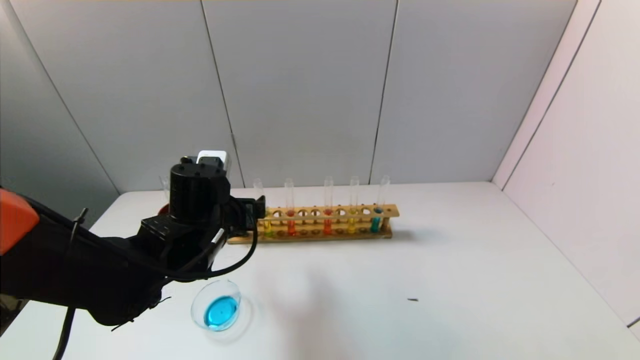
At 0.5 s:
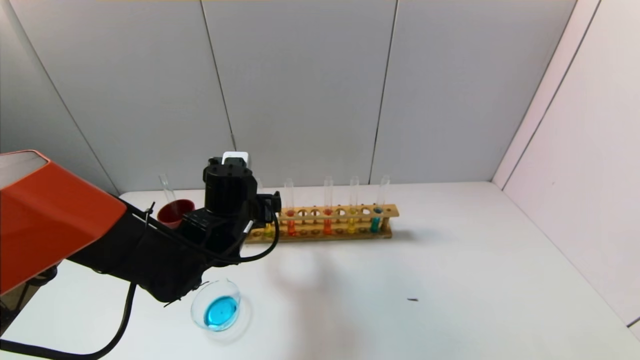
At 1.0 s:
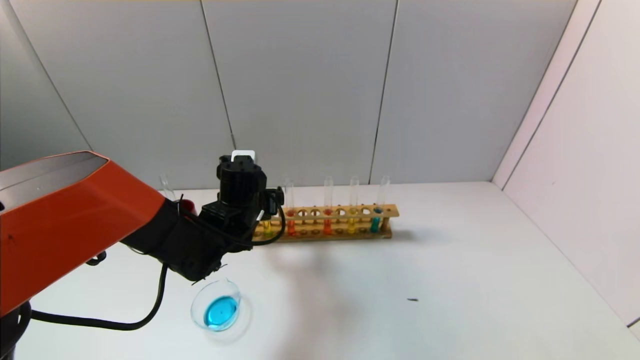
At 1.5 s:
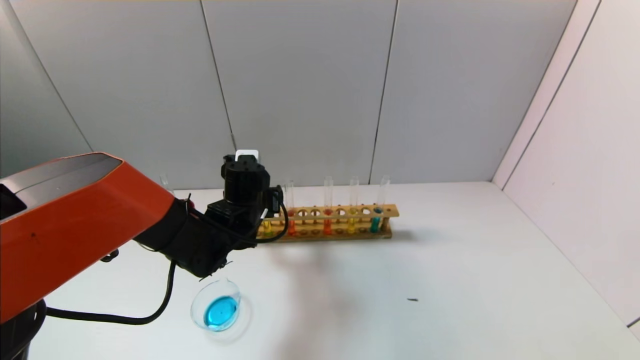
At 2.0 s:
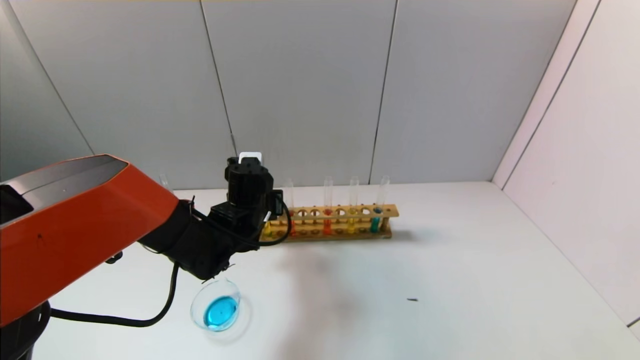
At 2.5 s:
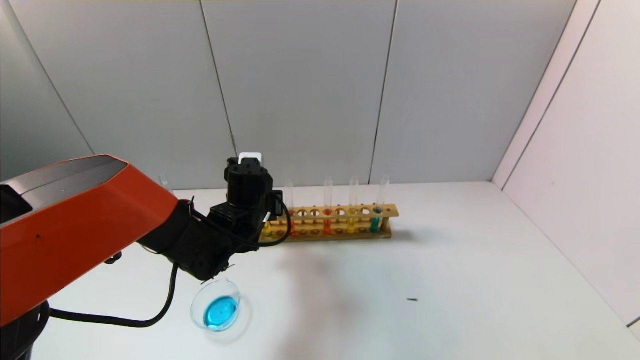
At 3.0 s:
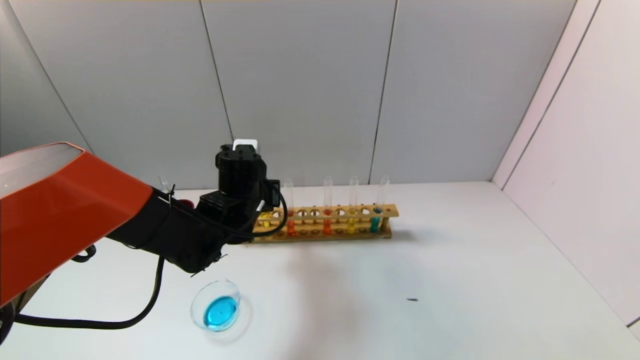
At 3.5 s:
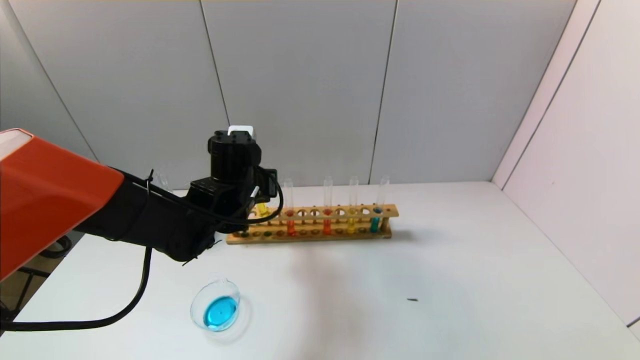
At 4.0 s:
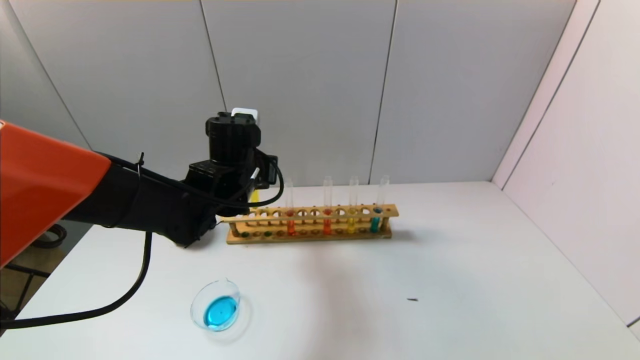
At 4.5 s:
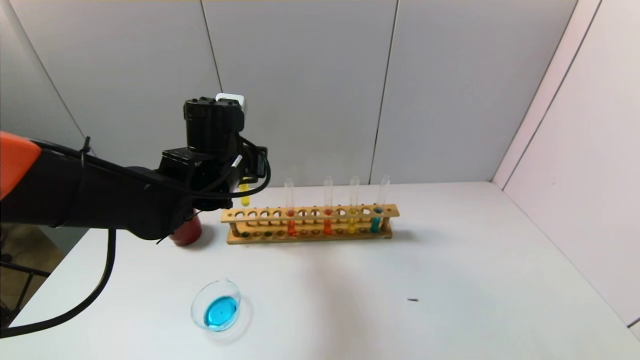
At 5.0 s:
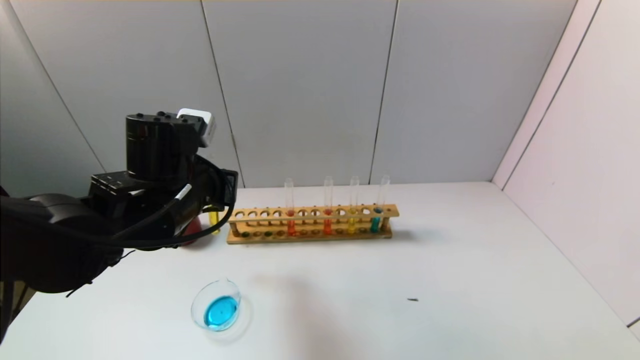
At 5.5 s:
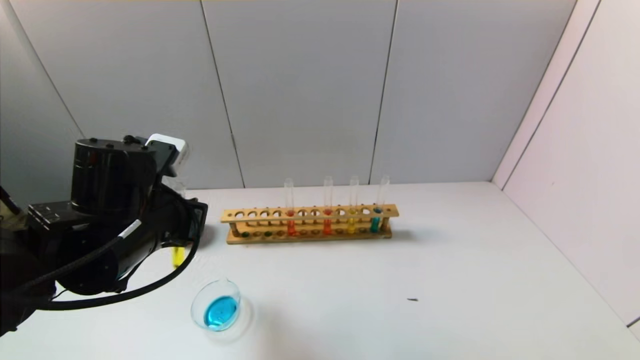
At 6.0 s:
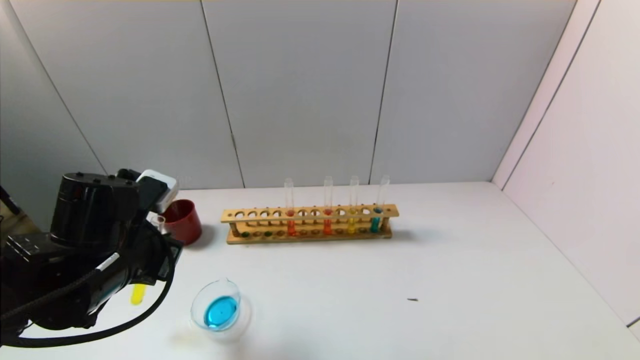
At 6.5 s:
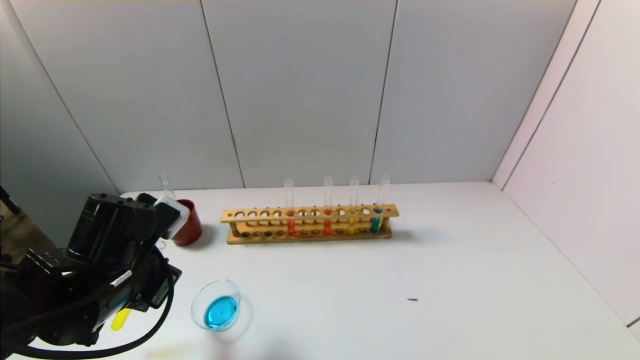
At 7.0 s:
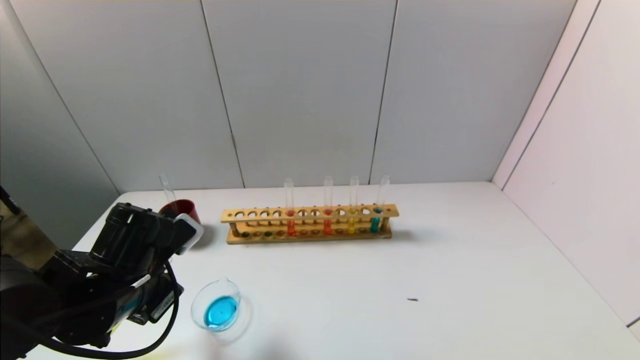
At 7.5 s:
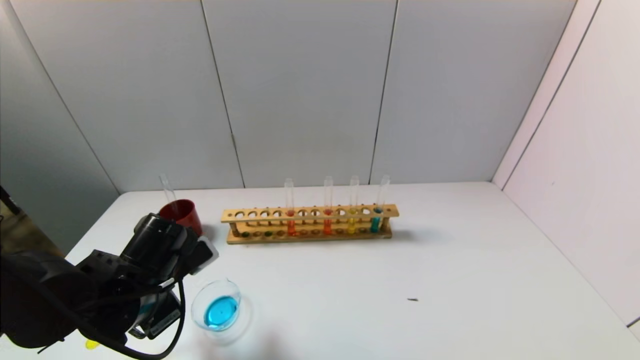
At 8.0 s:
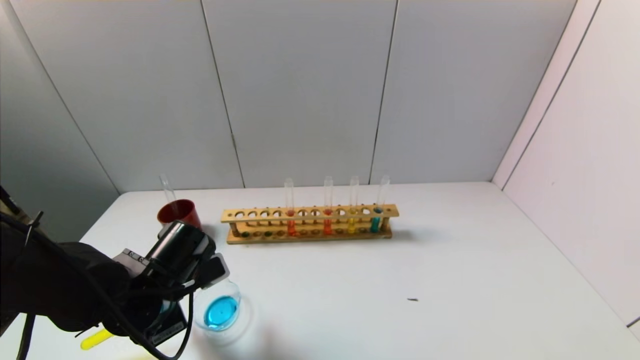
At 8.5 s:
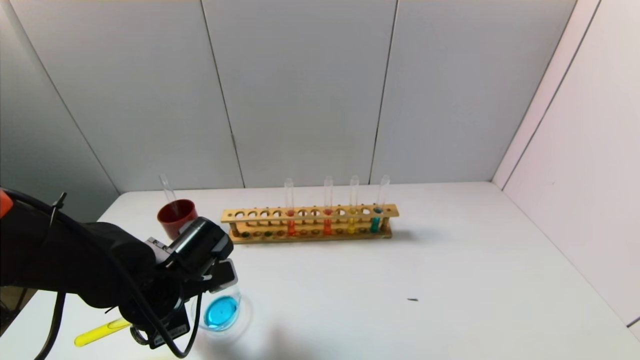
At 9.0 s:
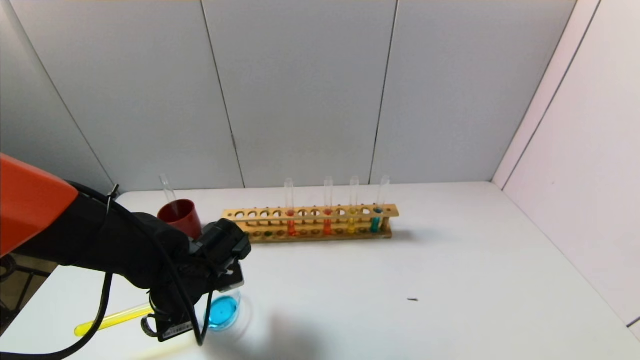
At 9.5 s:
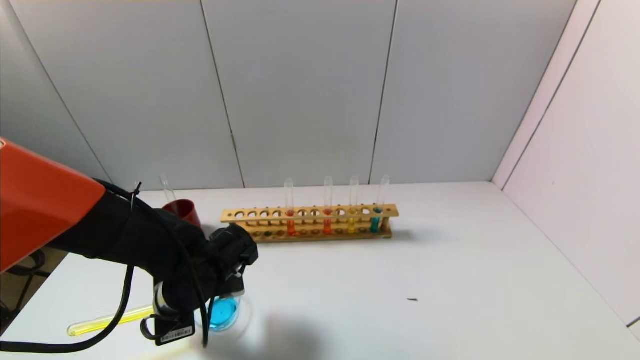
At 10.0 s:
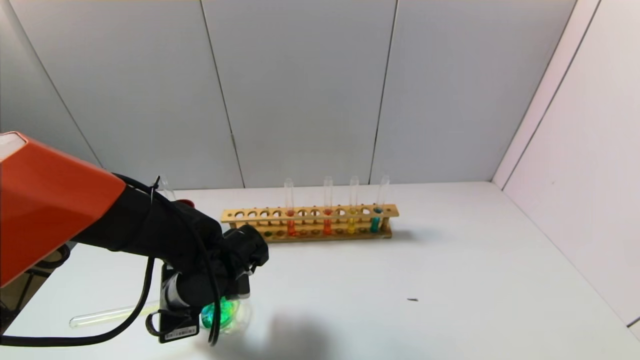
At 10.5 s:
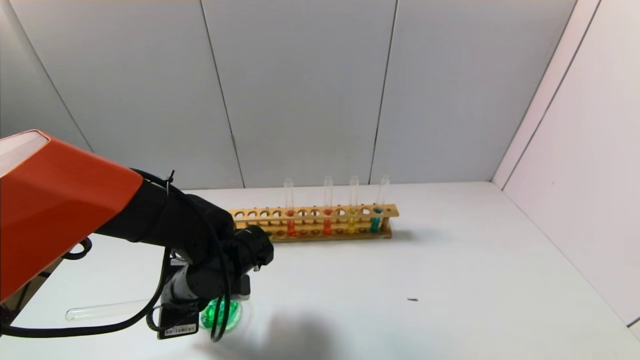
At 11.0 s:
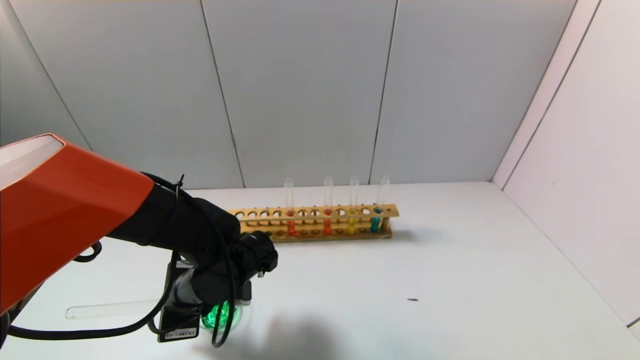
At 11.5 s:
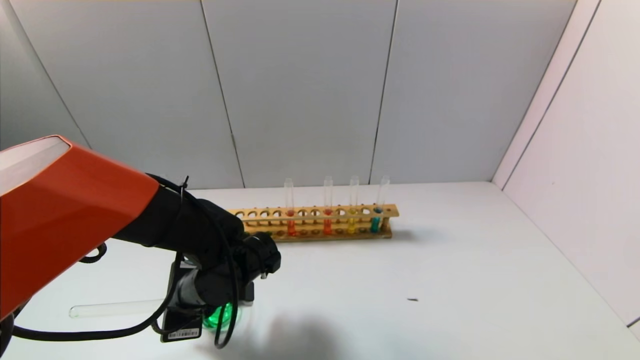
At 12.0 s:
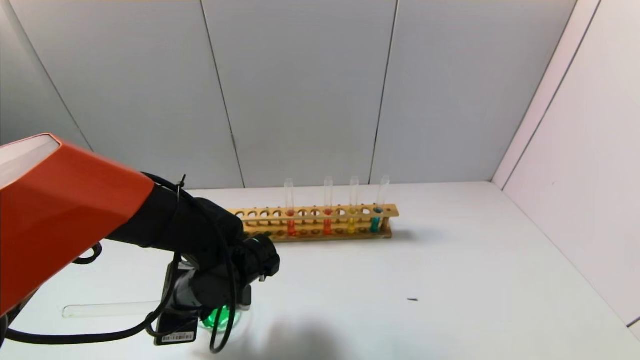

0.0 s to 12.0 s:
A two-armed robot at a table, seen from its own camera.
Task of the whole recording: pick up the test tube with yellow pigment and the test tube with blue pigment by grippers and pour them into the beaker.
Step, 0.0 to 2.0 s: Grasp the yellow reagent with the left gripper.
0.0 to 2.0 s: The left gripper is displaced forward by approximately 10 cm, and closes.
2.0 to 4.0 s: The left gripper heads upward, covering about 10 cm.
4.0 to 6.0 s: The left gripper heads backward and to the left, covering roughly 20 cm.
6.0 to 8.0 s: The left gripper goes approximately 10 cm downward.
8.0 to 10.0 s: The left gripper moves about 5 cm.
10.0 to 12.0 s: There are only small adjustments of the grippers.

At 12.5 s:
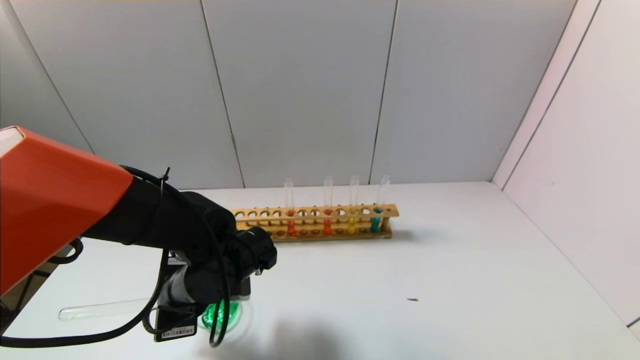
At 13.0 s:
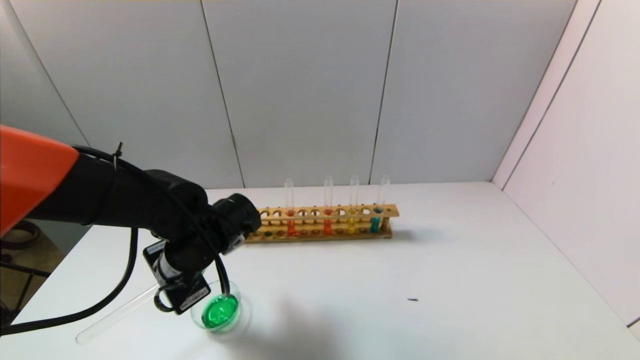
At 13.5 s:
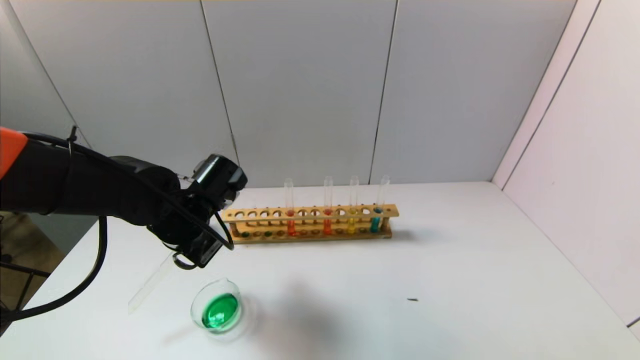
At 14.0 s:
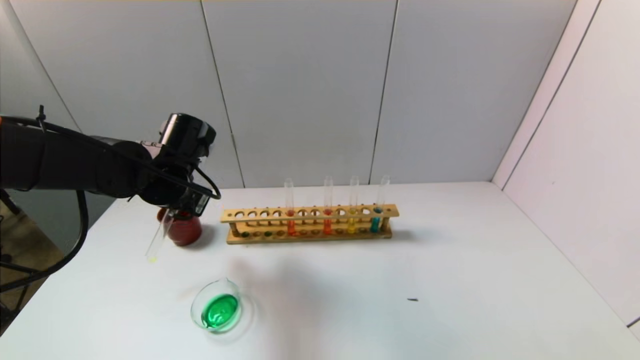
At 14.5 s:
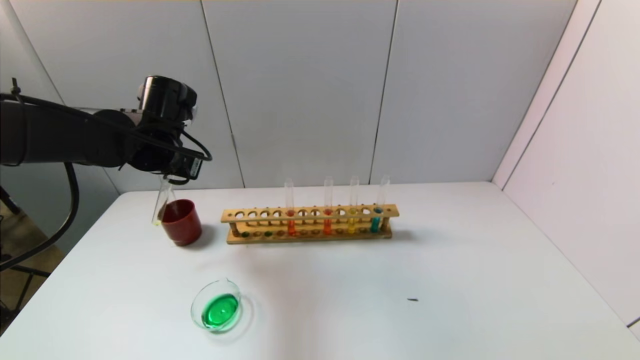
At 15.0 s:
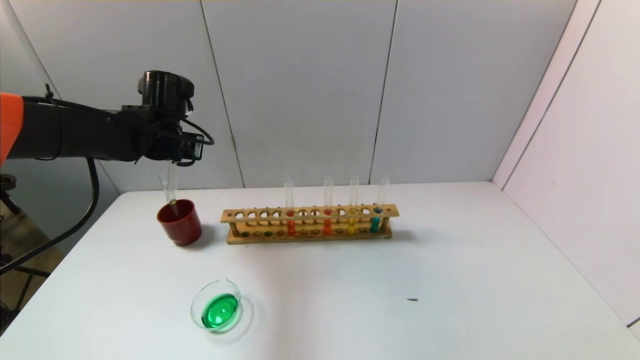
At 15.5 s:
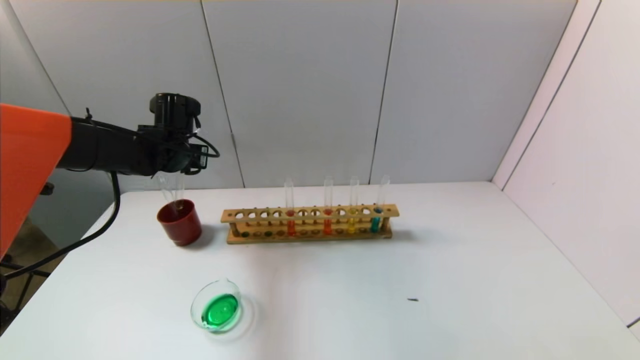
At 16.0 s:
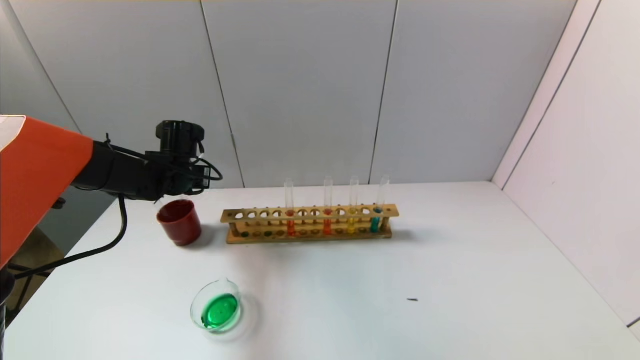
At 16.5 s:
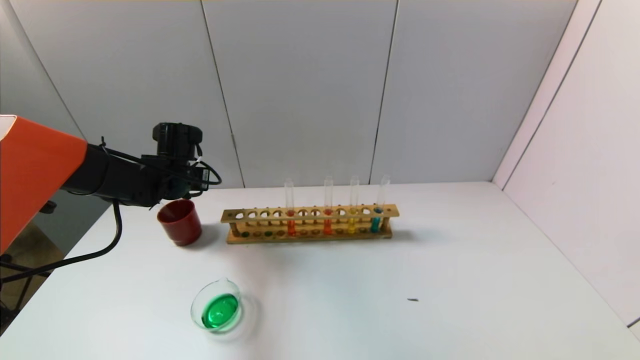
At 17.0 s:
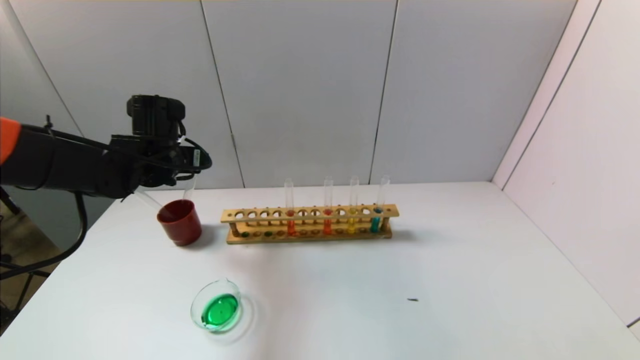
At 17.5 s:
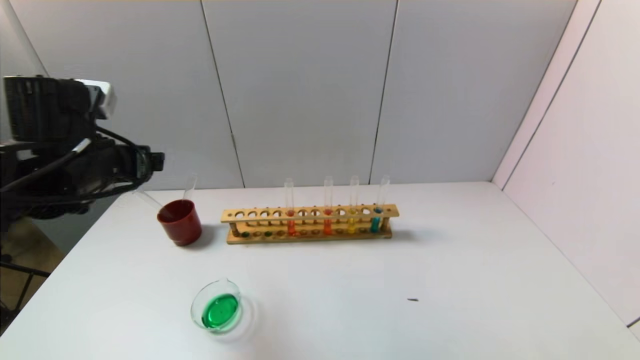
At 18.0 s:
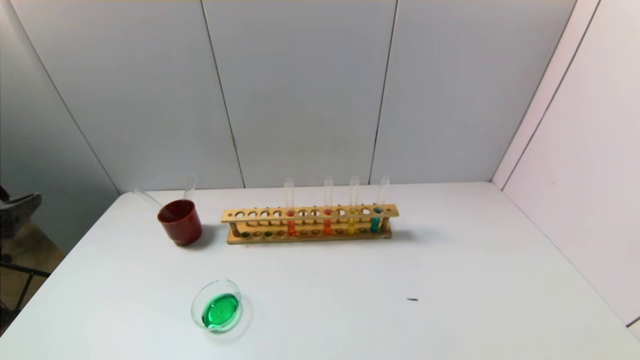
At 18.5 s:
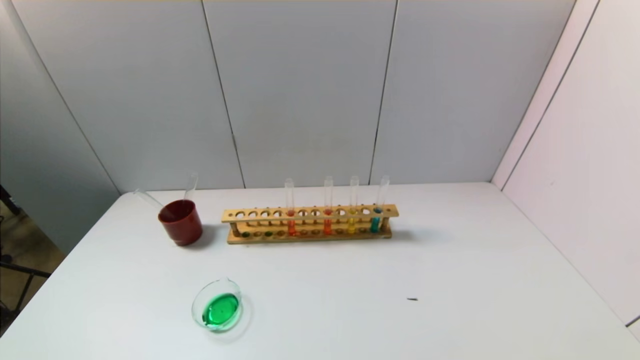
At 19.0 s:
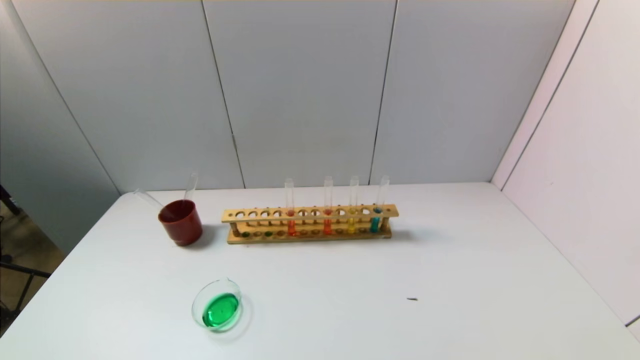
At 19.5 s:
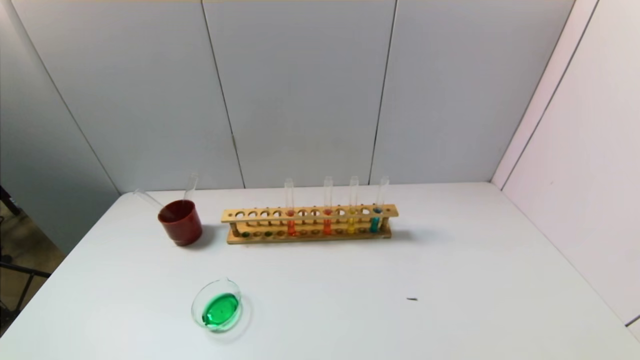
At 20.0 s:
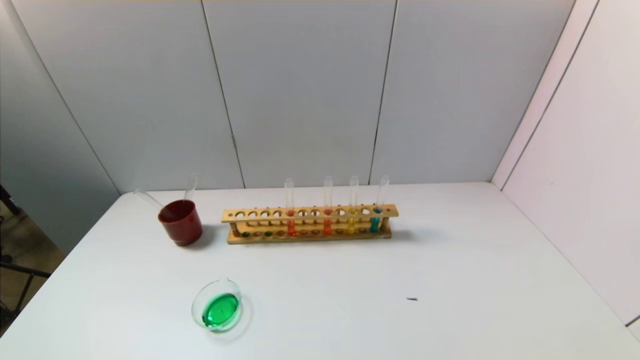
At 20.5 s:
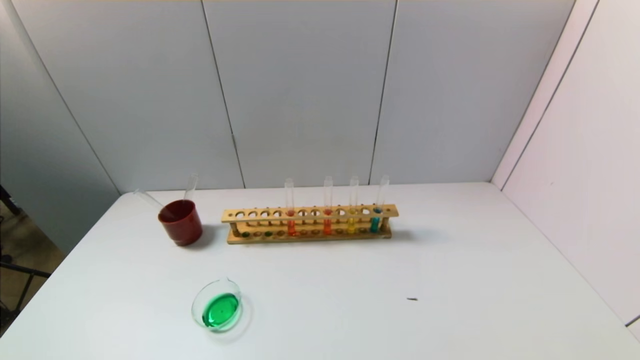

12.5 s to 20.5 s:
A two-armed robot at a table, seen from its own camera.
Task of the whole recording: pick up the test tube with yellow pigment and the test tube with blue pigment by grippers and pour them into the beaker.
Step, 13.0 to 16.5 s: Place the test tube into the brown cup with the left gripper.
12.5 to 14.5 s: The left gripper goes some 20 cm upward, forward and to the left.
14.5 to 16.5 s: The left gripper goes approximately 10 cm downward, and opens up.
16.5 to 18.5 s: The left gripper is displaced backward by some 50 cm, and opens up.
